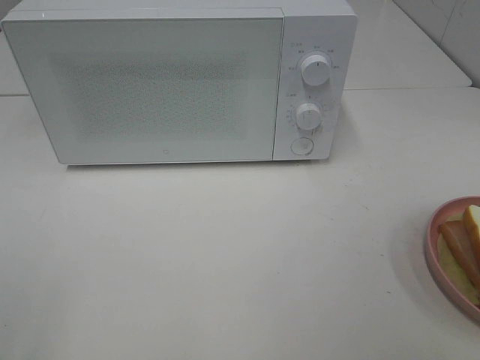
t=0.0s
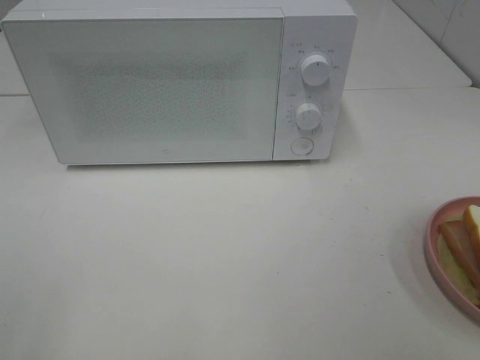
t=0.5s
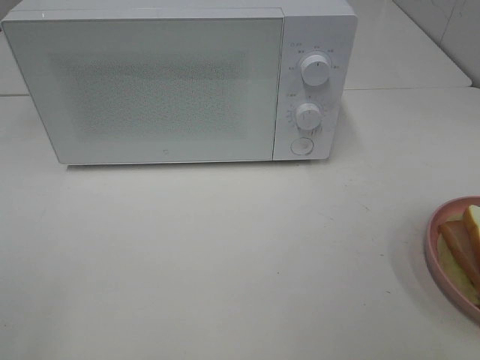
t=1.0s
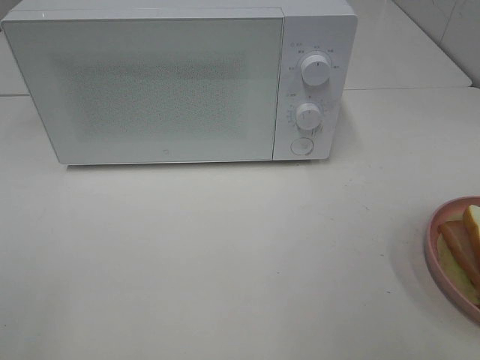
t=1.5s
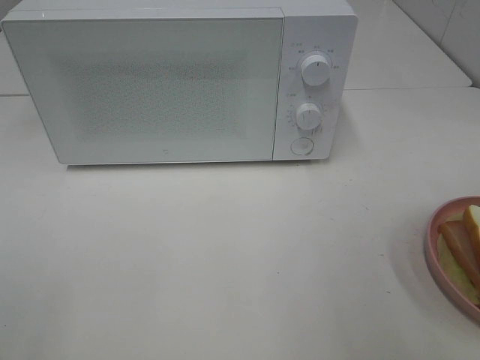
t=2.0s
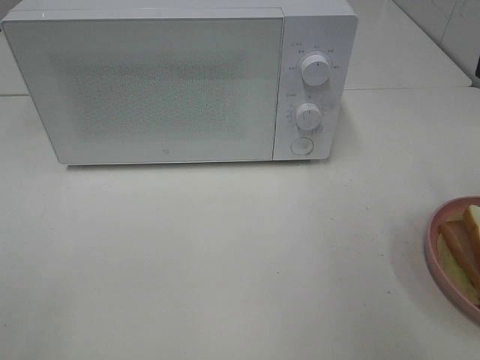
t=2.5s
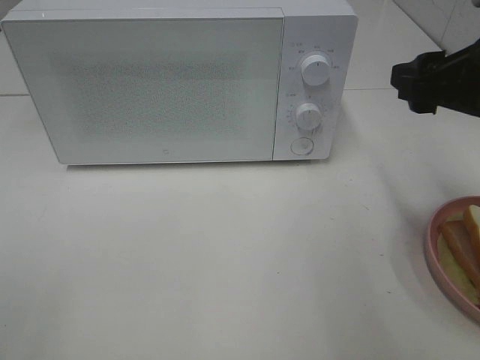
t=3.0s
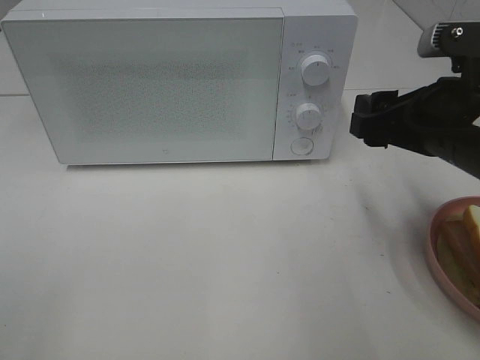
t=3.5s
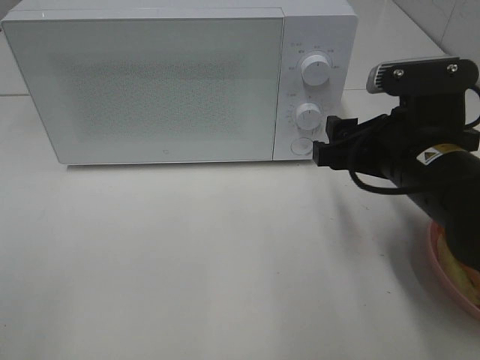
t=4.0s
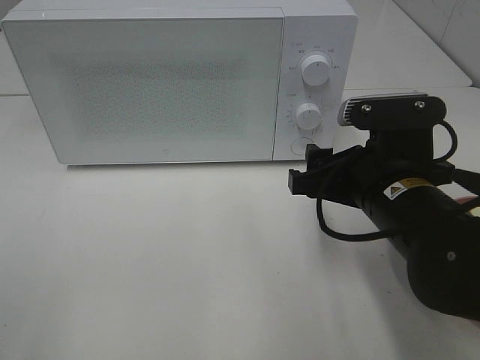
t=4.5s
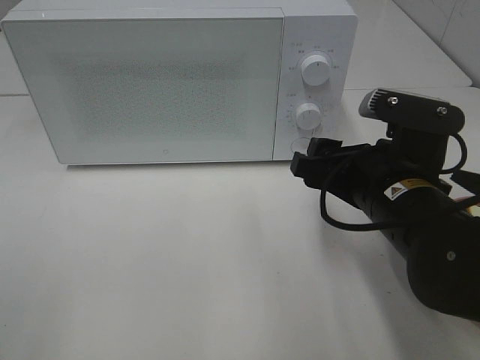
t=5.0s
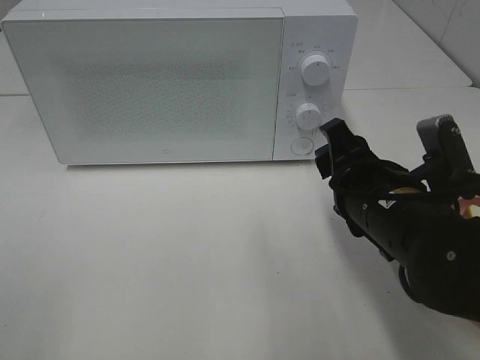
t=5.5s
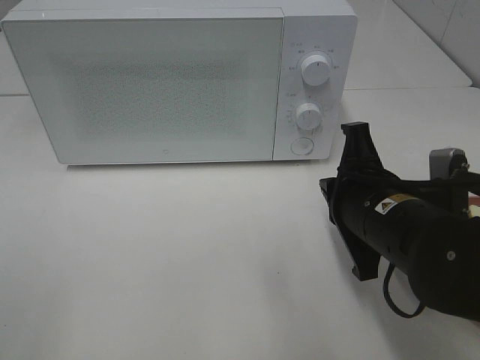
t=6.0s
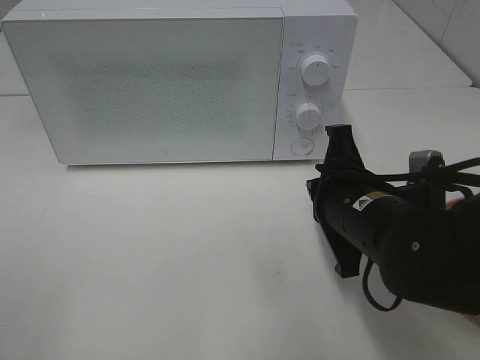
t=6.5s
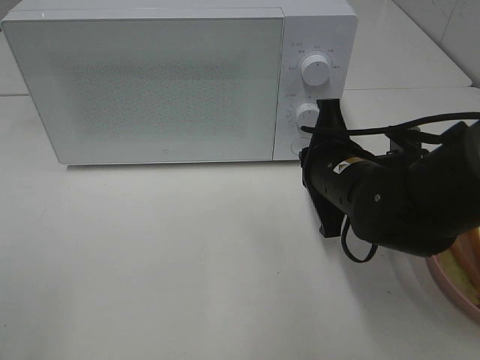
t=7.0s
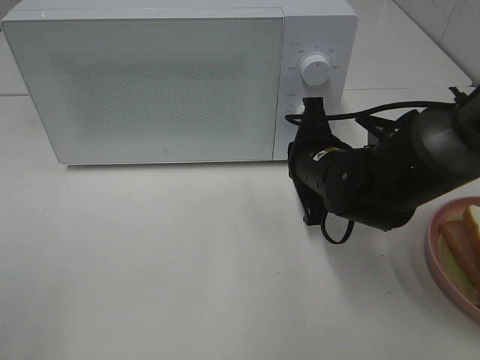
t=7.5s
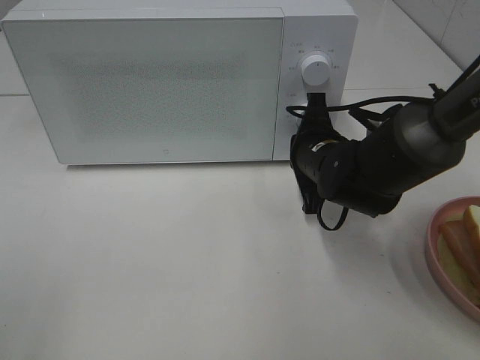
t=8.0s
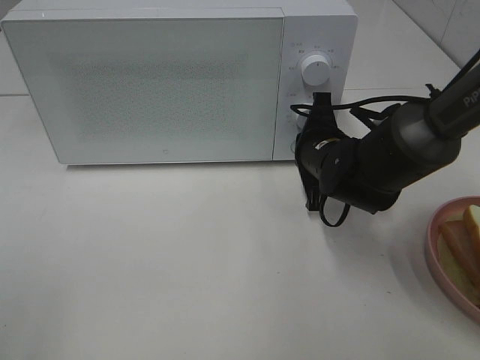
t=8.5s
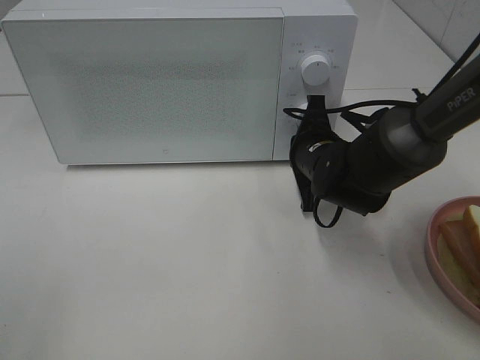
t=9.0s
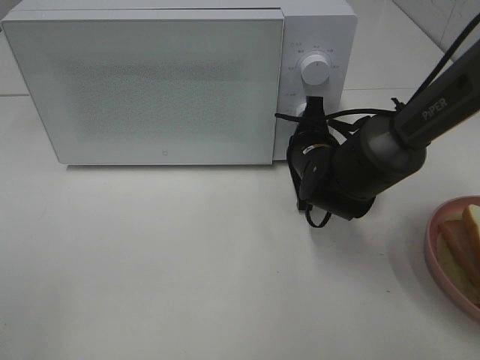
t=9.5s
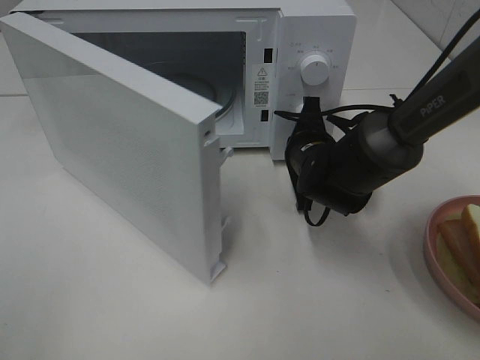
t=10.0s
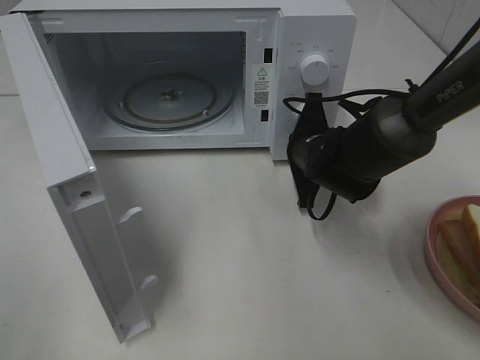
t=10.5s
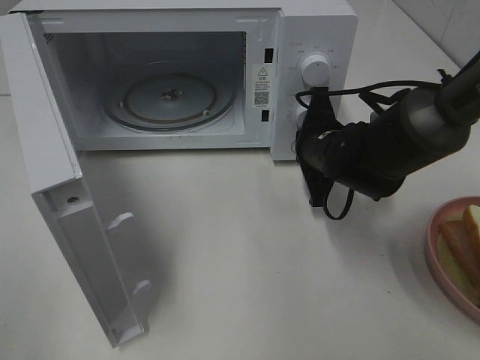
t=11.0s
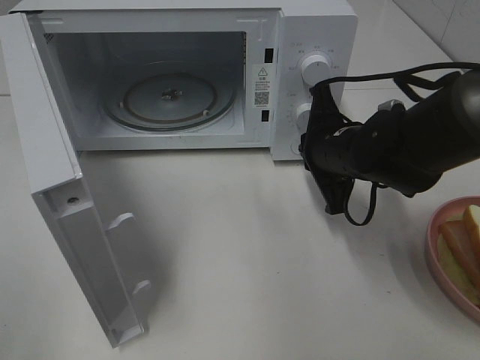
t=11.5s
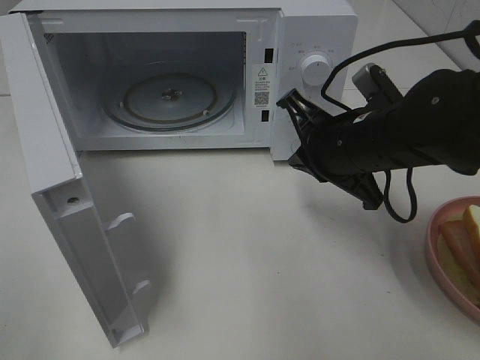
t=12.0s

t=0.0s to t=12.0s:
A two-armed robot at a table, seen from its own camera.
Task of the whole recording: Heat Sandwich.
Step, t=0.0s to t=11.5s: Right hand: press the switch.
t=2.0s to t=4.0s: The right gripper goes roughly 20 cm downward, forward and to the left.
t=4.0s to t=6.0s: The right gripper shifts by roughly 5 cm, and closes up.
t=6.0s to t=8.0s: The right gripper is displaced forward by roughly 15 cm.
t=10.0s to t=12.0s: The right gripper moves upward and backward, approximately 10 cm.

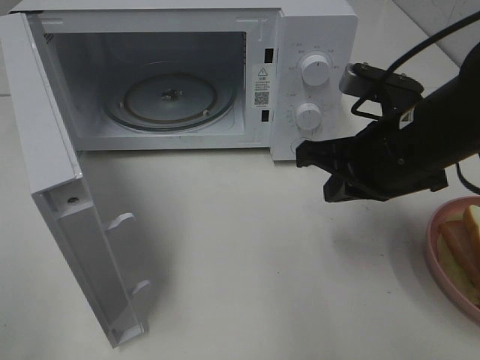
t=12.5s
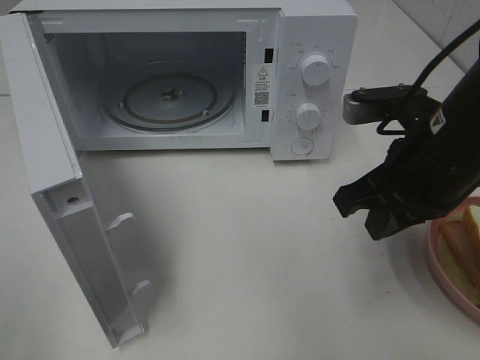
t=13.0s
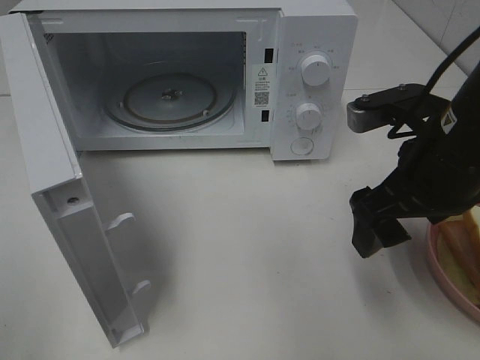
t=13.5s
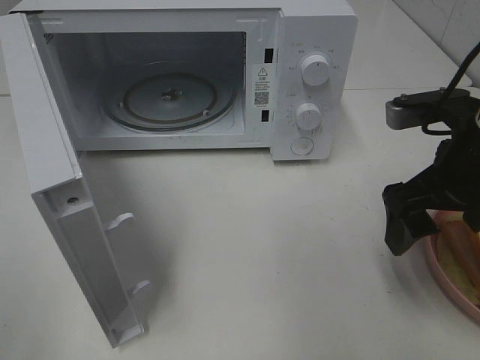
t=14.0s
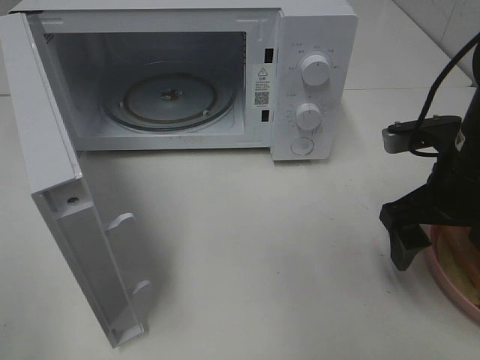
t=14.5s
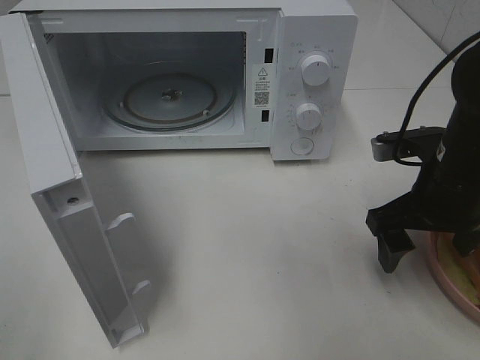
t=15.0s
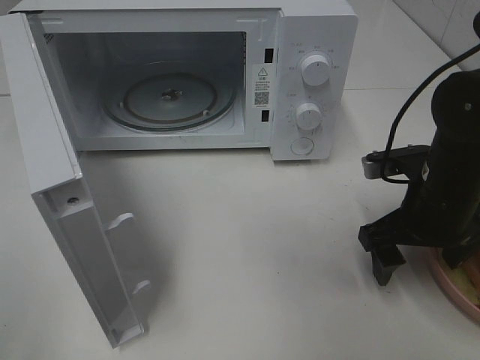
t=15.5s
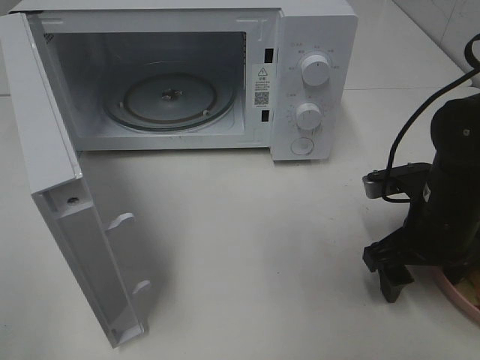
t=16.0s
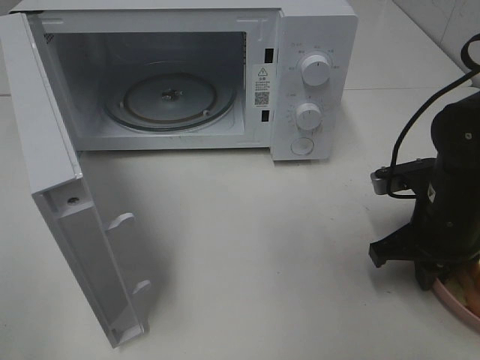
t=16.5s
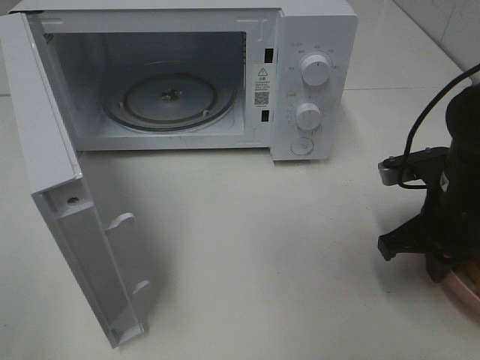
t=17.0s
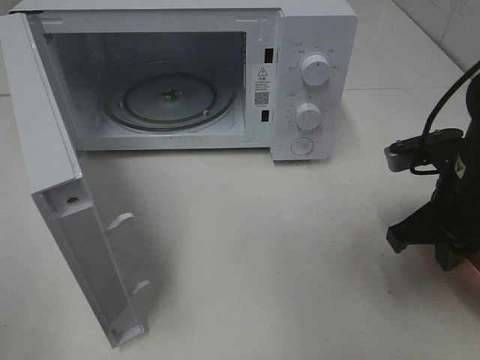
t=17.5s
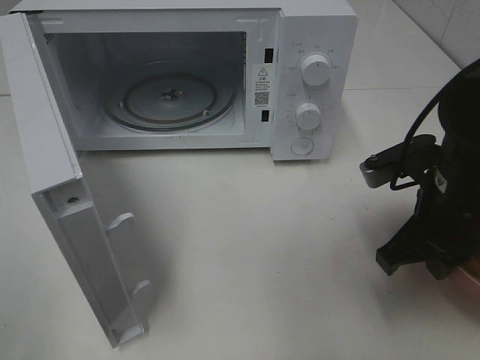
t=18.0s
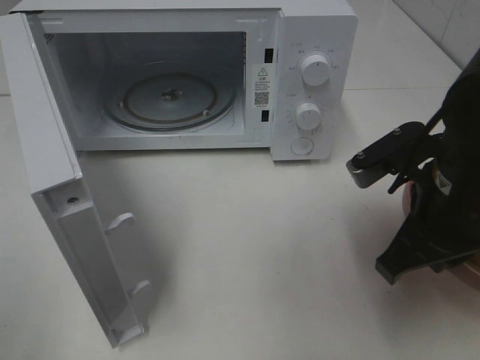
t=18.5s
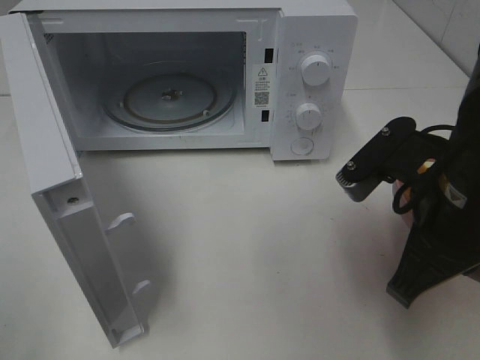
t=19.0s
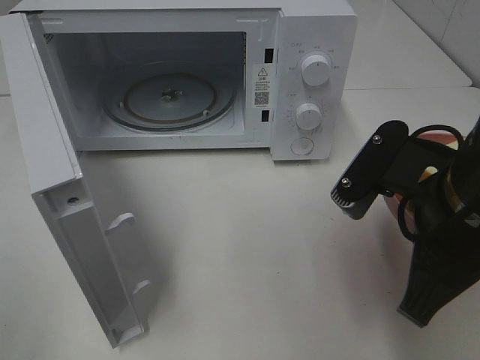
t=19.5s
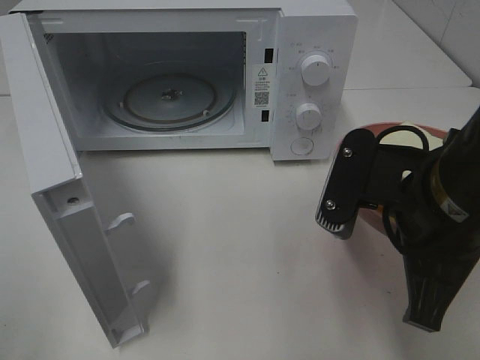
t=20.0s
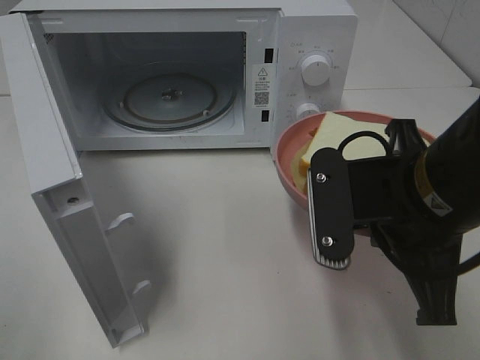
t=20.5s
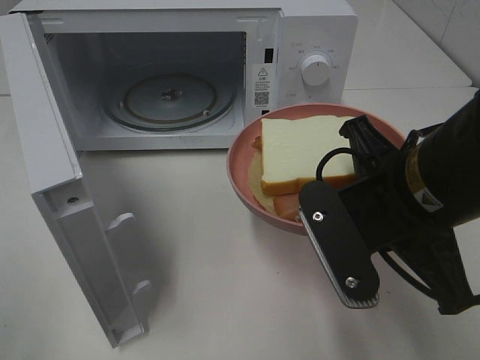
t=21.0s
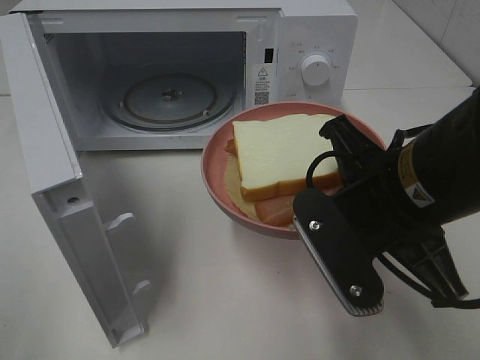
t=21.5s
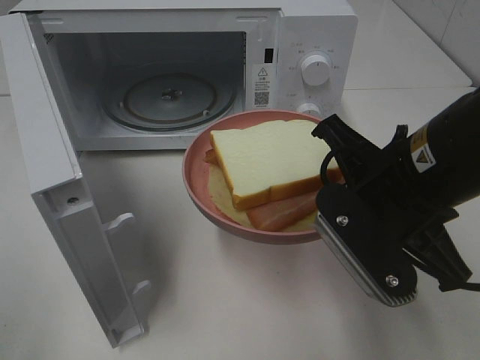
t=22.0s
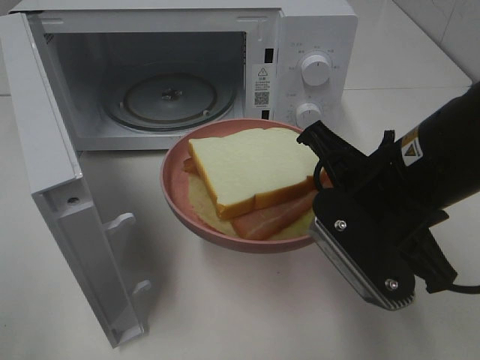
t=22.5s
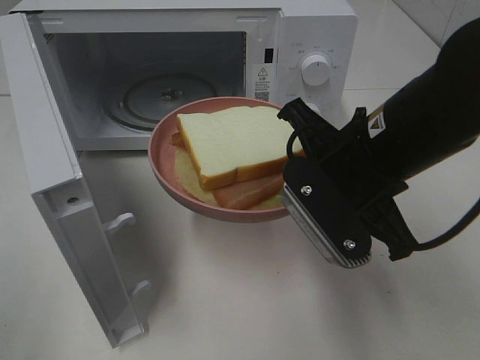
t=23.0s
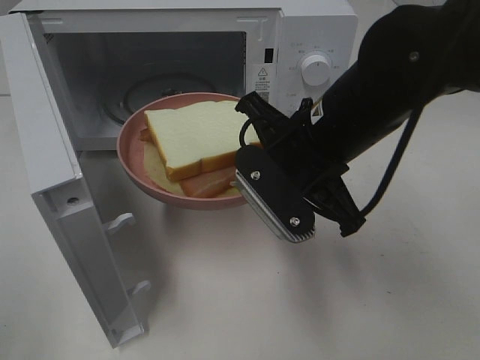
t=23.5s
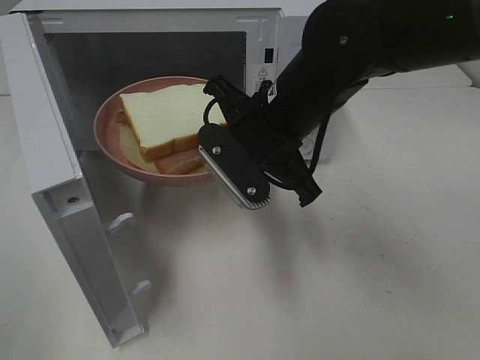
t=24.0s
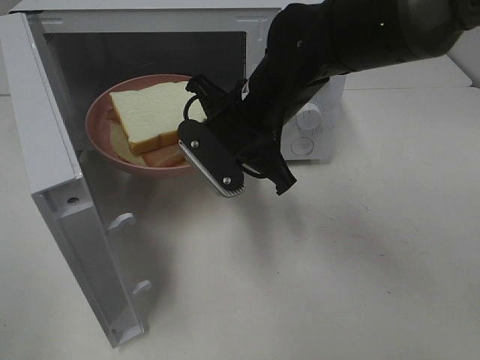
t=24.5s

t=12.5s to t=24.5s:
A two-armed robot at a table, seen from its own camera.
Task of the whole recording: Heat Sandwich.
Step, t=12.5s to t=16.5s: Right hand: grab the plate with the sandwich.
t=12.5s to t=14.5s: The right gripper moves to the right, some 5 cm, and opens.
t=14.5s to t=16.5s: The right gripper heads downward, covering approximately 5 cm, and closes.
t=16.5s to t=18.5s: The right gripper moves upward and backward, roughly 10 cm.
t=18.5s to t=20.5s: The right gripper changes place by some 5 cm.
t=22.5s to t=24.5s: The right gripper travels forward and to the left by roughly 15 cm.

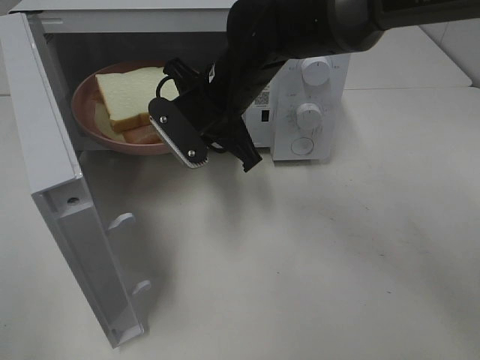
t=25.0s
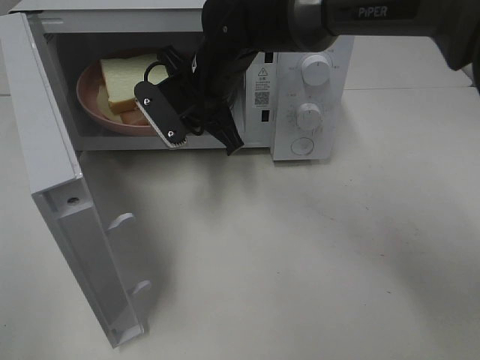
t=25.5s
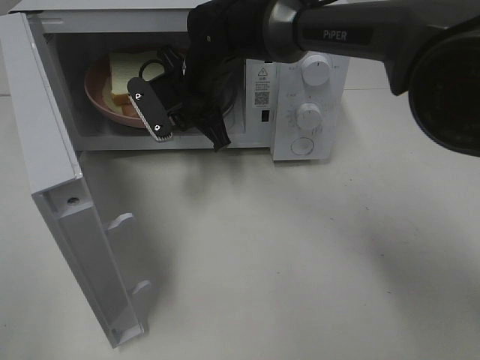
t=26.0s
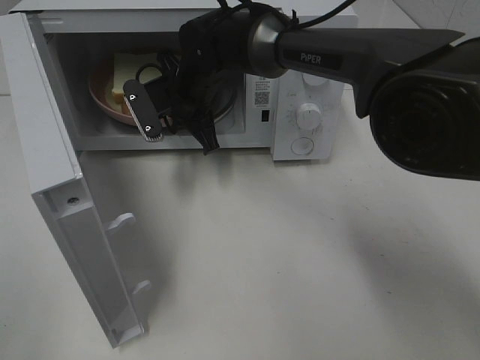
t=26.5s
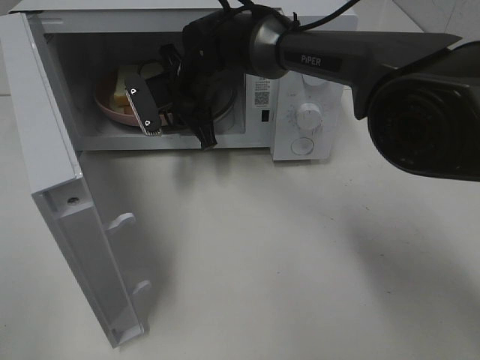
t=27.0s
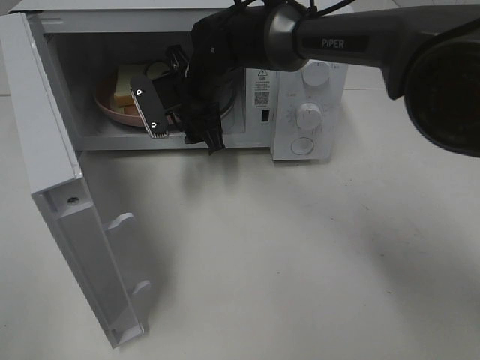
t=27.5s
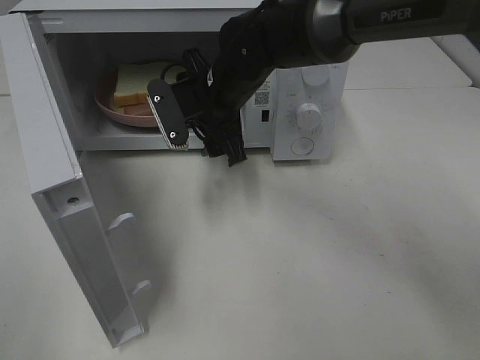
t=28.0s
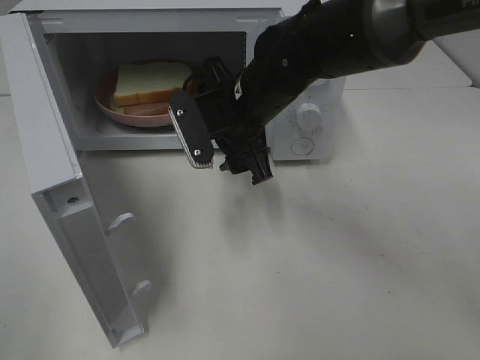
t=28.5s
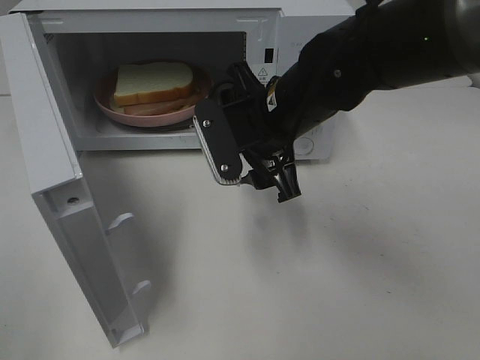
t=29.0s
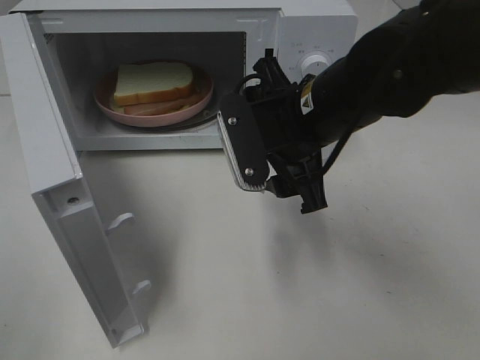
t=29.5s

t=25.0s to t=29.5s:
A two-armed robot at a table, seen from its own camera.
Task of the whole recording: Heat Sandwich.
Step, t=25.0s to t=27.5s: Right hand: place the plate in the microwave.
t=25.0s to t=27.0s: The right gripper travels forward by roughly 10 cm.
t=27.0s to t=29.5s: The right gripper is displaced backward and to the right by some 20 cm, and opens its fingers.
